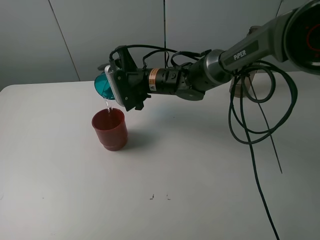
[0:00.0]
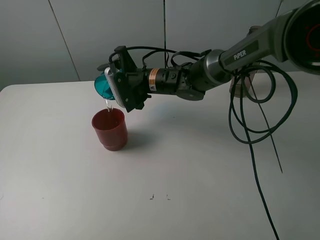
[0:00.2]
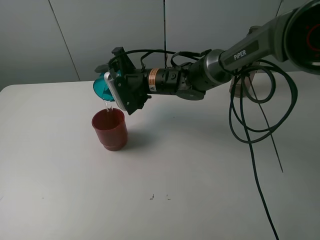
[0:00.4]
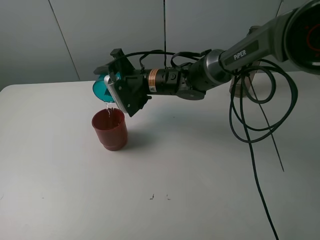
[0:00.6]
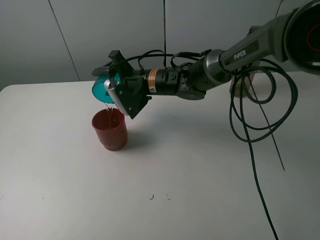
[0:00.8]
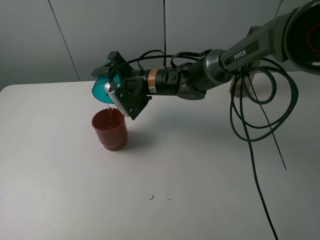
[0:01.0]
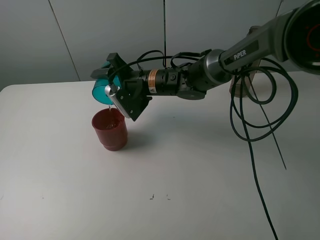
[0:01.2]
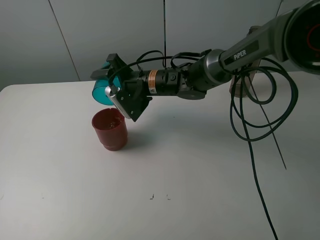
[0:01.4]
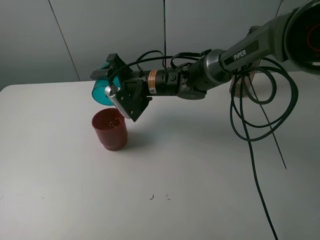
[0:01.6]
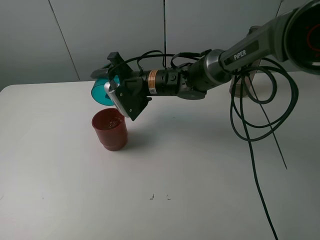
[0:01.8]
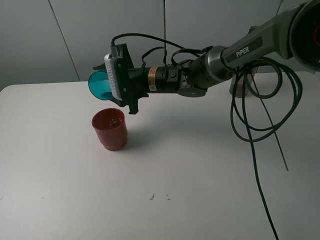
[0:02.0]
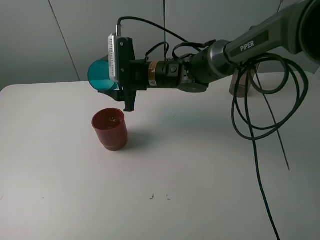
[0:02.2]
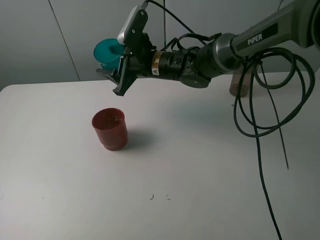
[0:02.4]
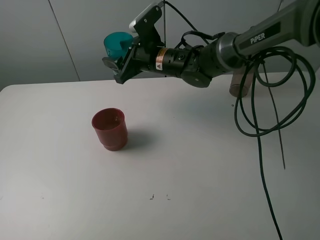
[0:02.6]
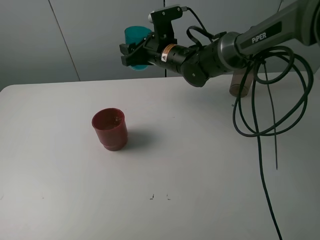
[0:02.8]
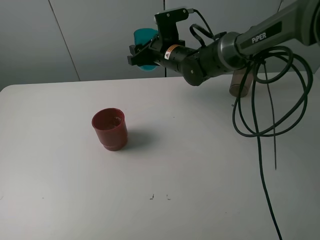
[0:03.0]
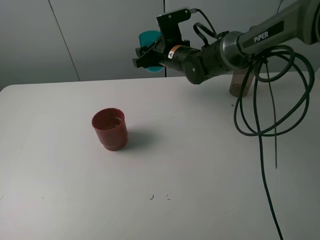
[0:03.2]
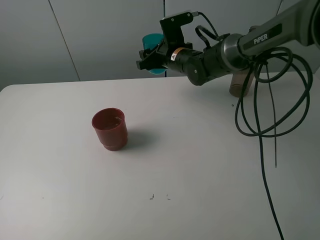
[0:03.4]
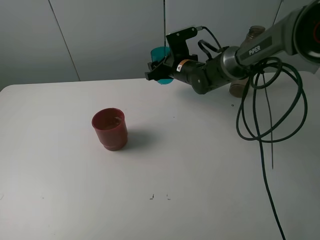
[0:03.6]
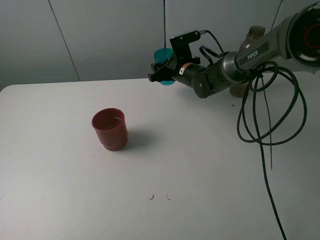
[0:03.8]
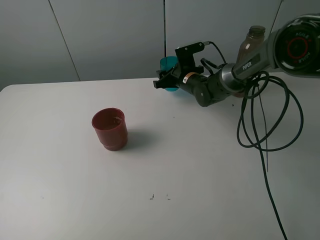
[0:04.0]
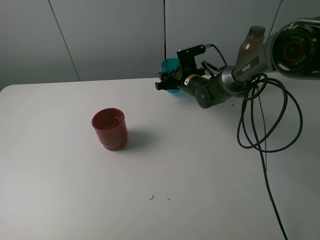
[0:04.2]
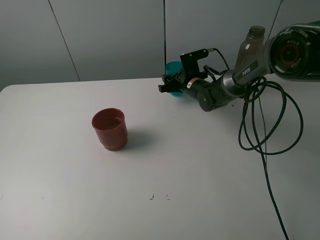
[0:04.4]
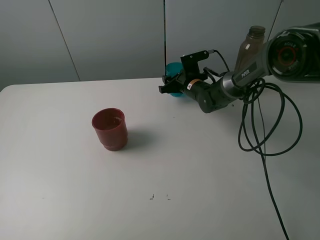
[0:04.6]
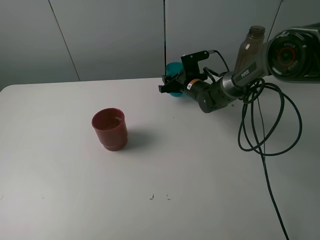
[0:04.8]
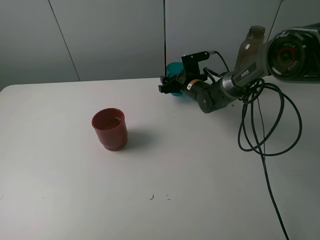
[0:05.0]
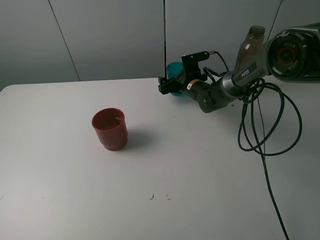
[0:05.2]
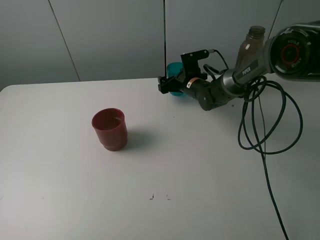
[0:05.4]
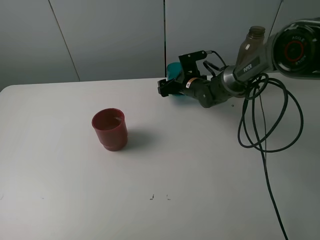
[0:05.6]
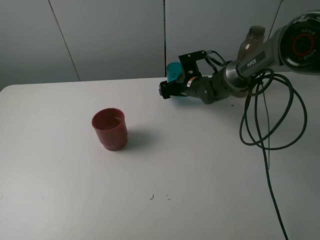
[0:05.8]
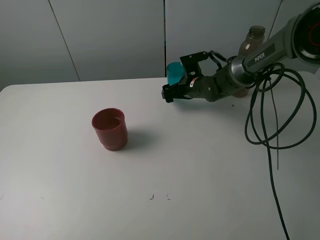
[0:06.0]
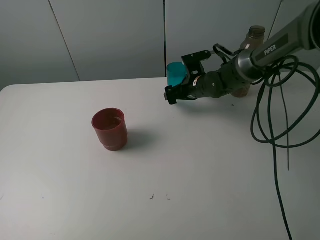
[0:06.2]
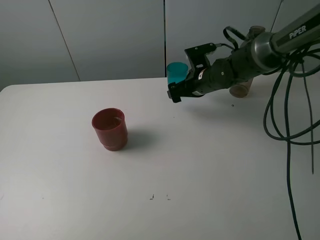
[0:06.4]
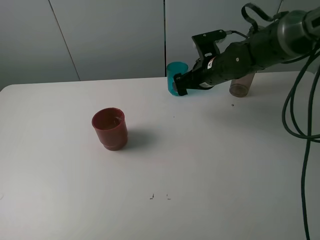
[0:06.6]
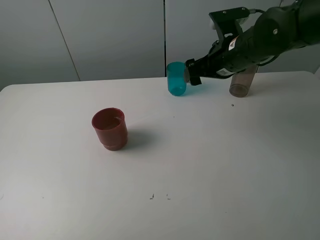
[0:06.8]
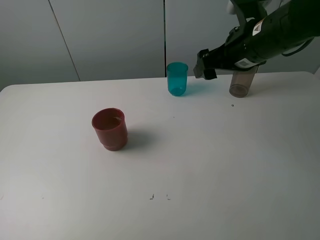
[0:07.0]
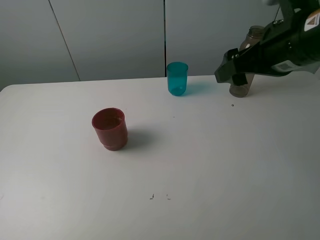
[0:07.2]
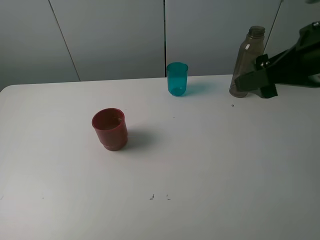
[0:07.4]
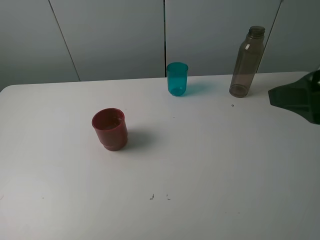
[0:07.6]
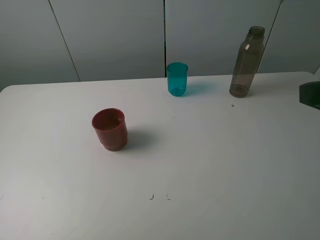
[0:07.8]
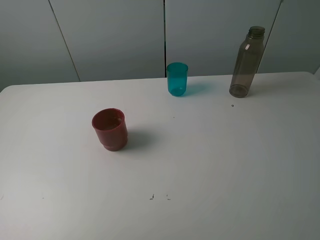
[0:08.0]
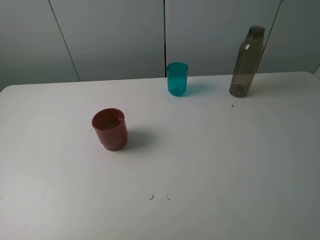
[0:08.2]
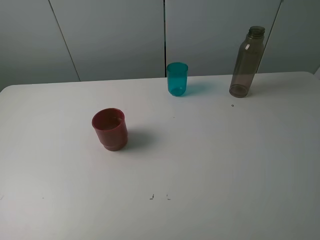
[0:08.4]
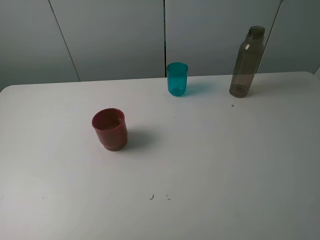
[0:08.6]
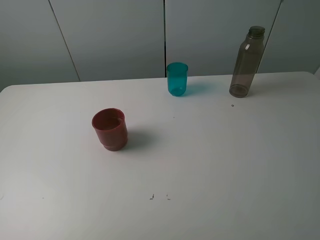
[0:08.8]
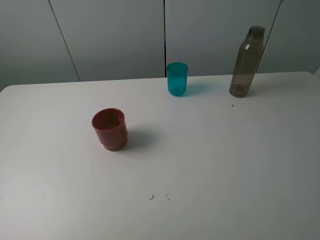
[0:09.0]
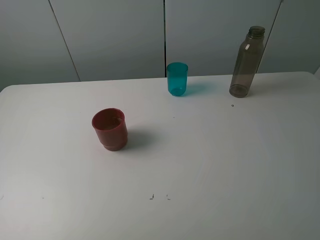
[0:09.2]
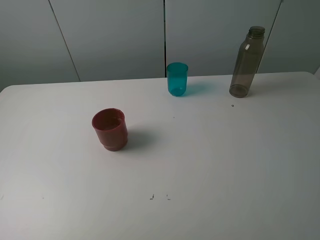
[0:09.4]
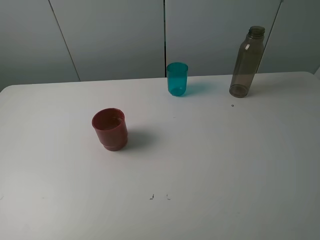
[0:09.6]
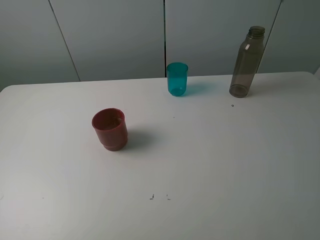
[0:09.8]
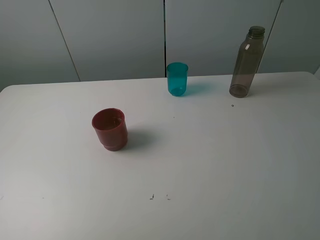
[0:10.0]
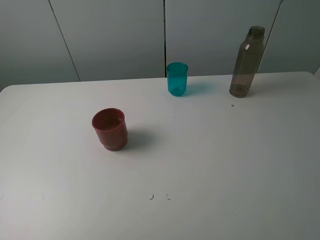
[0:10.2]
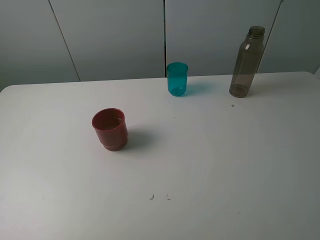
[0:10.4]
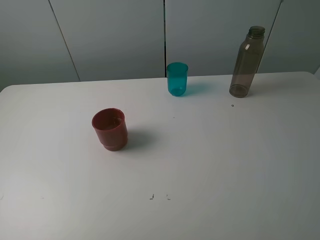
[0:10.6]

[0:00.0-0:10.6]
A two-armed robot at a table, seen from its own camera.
Task of the whole recording: pick up the bottle and pour water into the cup, then pick up the cup containing water and pour it into another cup.
Step, 0:01.6 to 0:05.4: Place the blue cup with the right gripper.
0:00.0 to 0:01.6: There are only small adjustments of the grippers.
0:01.6 to 0:03.0: The right gripper is displaced forward and to the right by approximately 5 cm.
0:03.0 to 0:04.6: The right gripper moves downward and to the right, about 15 cm.
0:04.6 to 0:06.0: The right gripper opens up.
0:06.0 to 0:07.6: The right gripper goes approximately 40 cm backward, upward and to the right.
0:07.6 to 0:09.0: The right gripper goes roughly 10 cm backward and to the right.

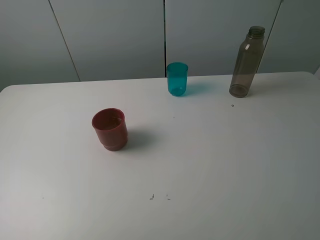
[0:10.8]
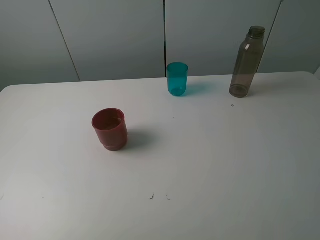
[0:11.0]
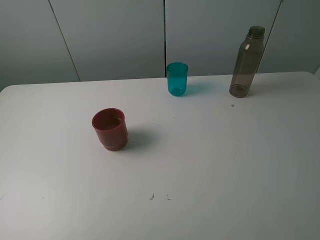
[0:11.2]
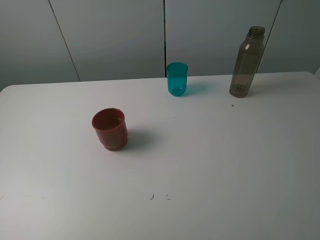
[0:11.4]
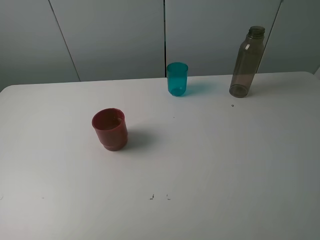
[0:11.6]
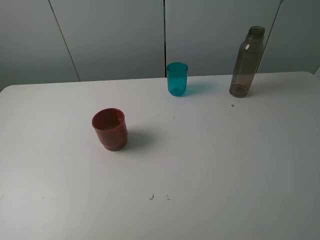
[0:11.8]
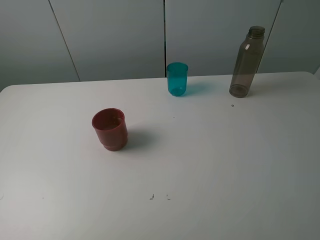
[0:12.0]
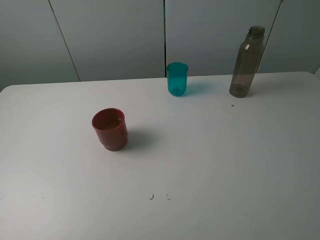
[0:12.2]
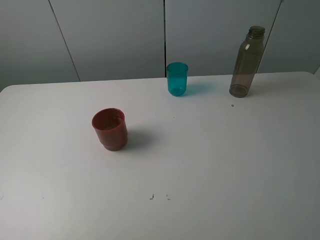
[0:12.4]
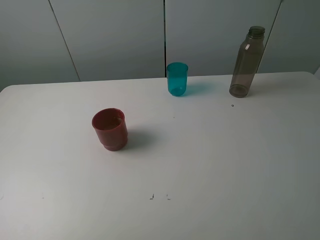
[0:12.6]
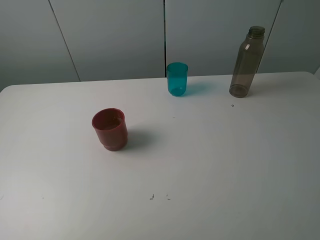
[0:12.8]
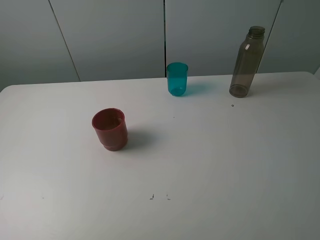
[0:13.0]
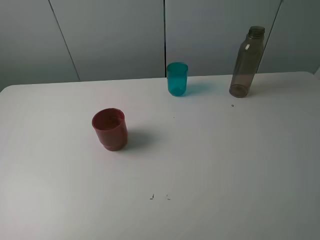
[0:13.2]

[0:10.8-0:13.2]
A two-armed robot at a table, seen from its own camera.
Task of the whole recording: pick up the bottle and pour water into the cup, then pick up the cup containing water and pour it into another cup.
0:10.8 to 0:13.2: Neither gripper changes place.
